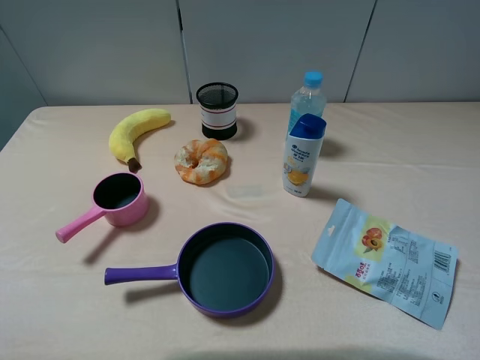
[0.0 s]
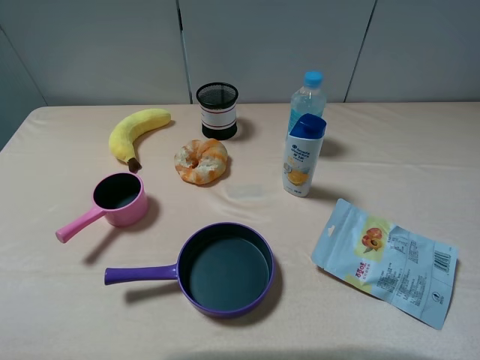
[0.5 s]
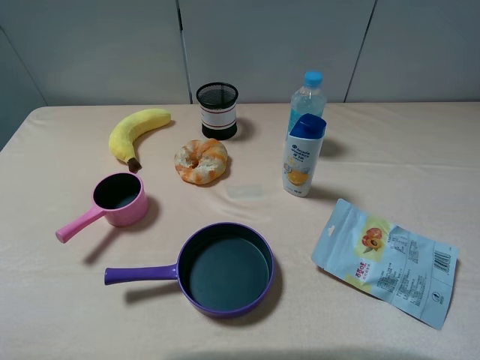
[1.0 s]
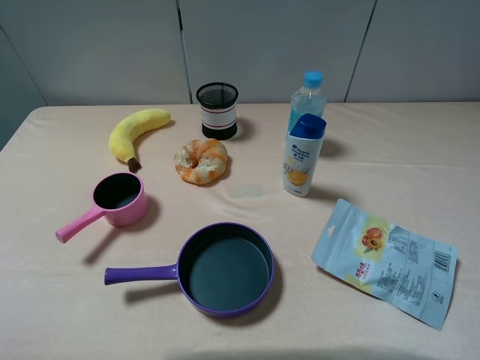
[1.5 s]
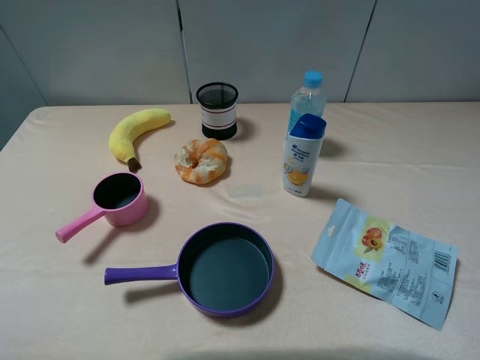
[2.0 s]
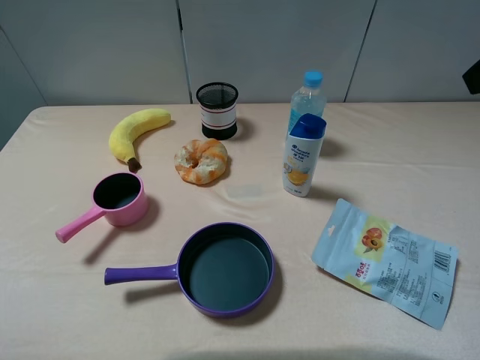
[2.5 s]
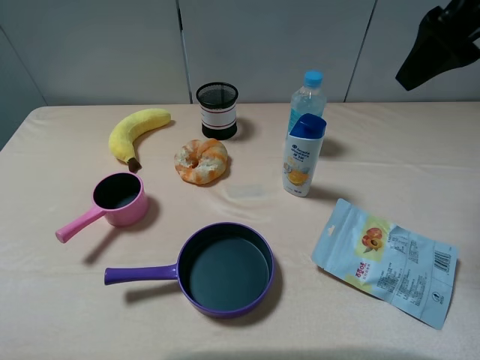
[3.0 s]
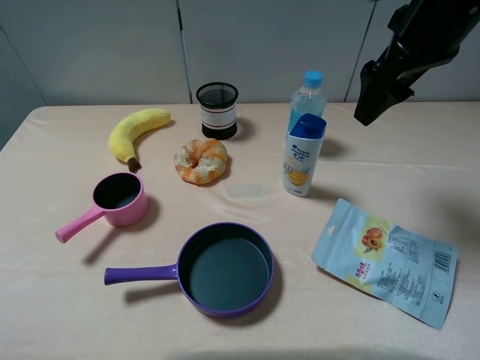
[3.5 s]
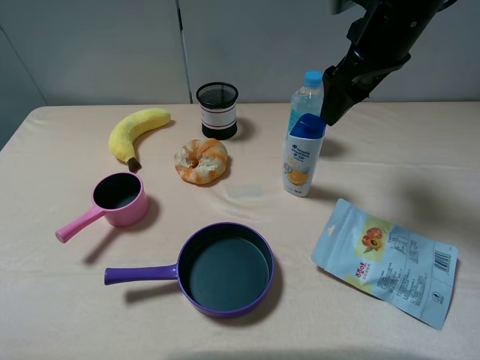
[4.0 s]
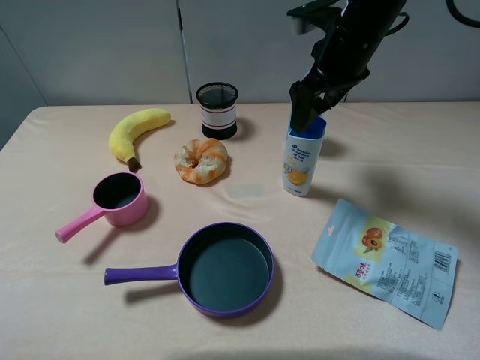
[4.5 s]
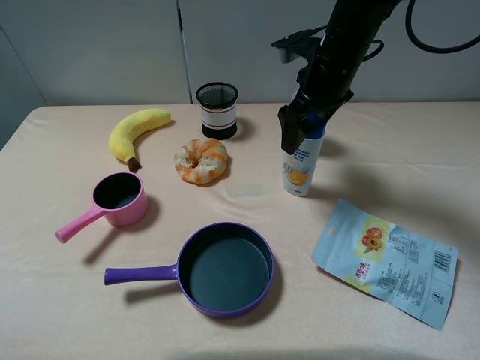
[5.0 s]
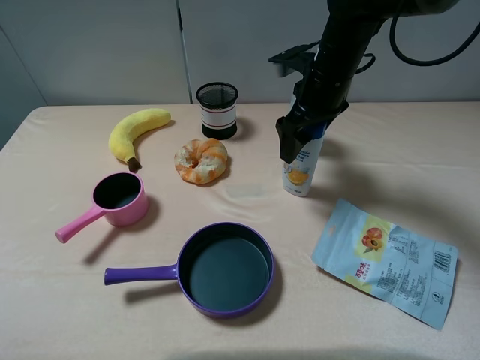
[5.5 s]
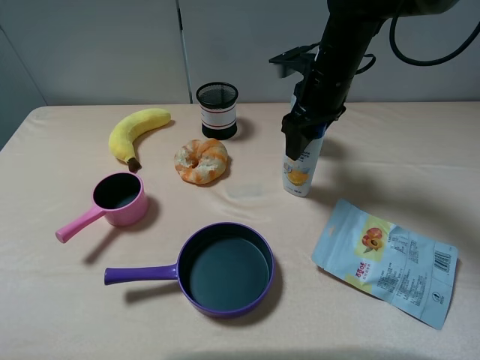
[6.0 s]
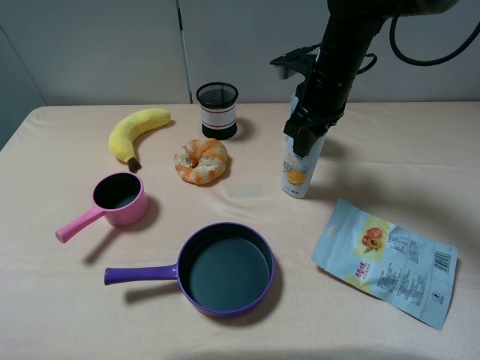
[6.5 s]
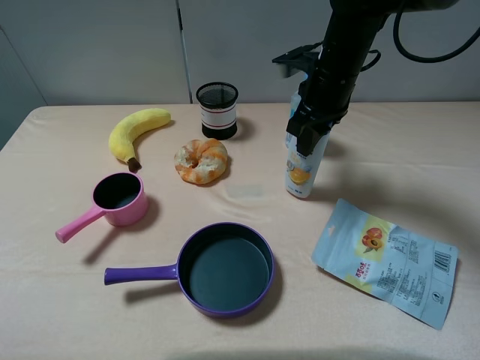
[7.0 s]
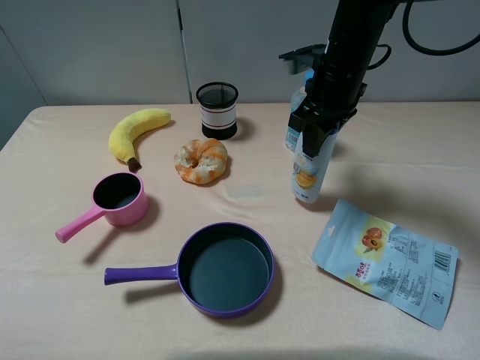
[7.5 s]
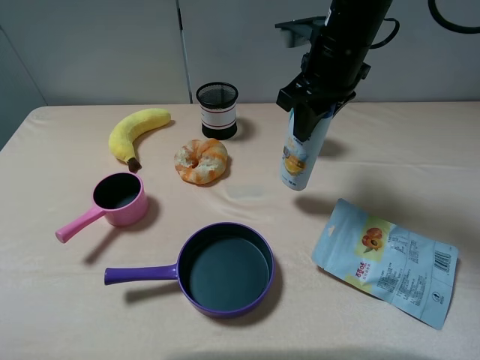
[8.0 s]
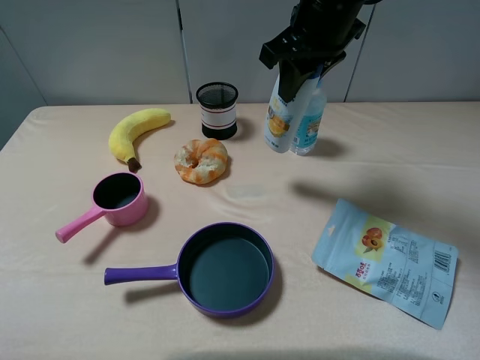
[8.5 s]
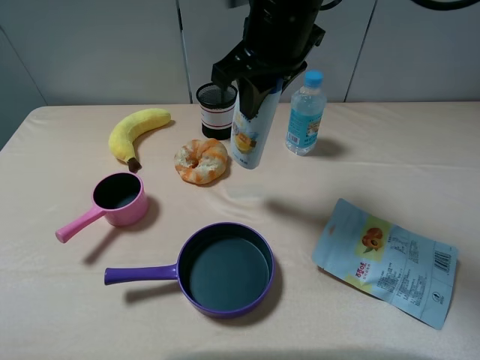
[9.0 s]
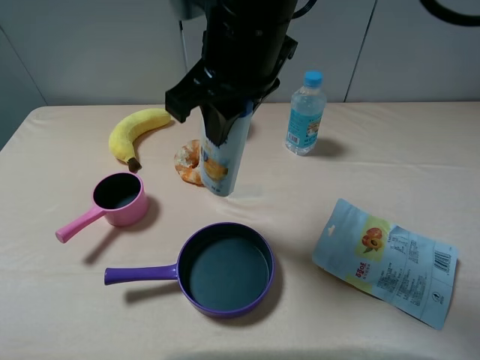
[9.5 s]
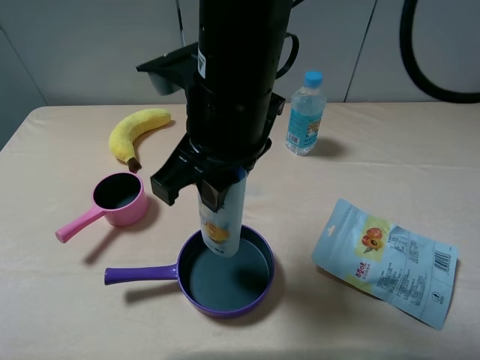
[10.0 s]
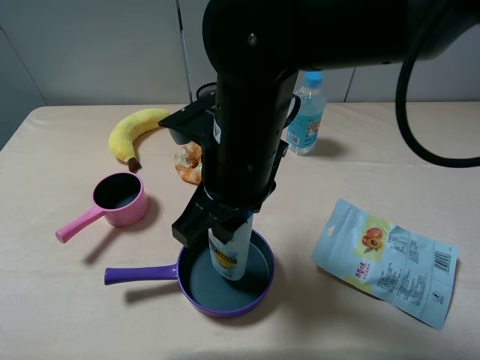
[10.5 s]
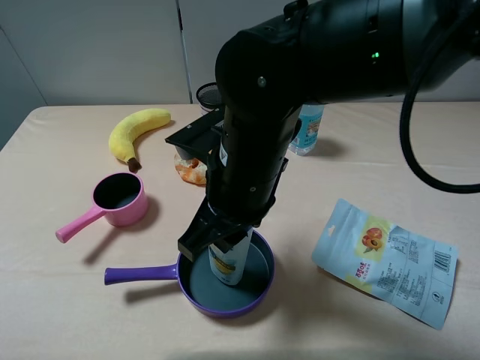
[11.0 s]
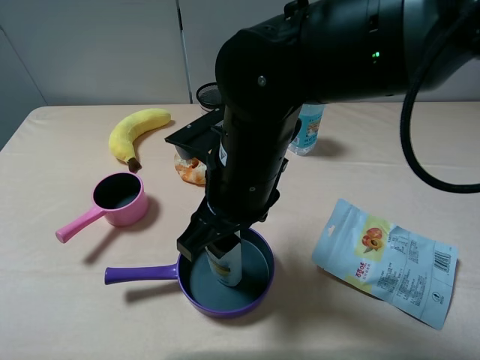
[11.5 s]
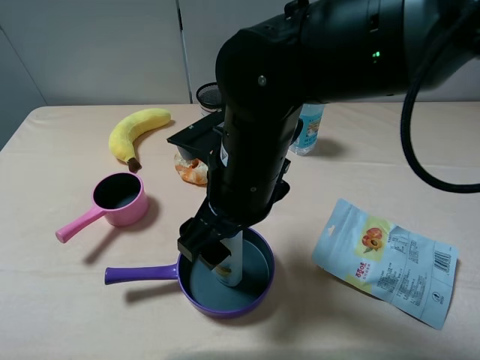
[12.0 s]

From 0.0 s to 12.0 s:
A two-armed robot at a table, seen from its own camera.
Task of the whole recording: pick up an item with a gripper and place it in a random container on the table.
Step, from 0.0 s to 6.5 s: Grasp the shampoo with the right gripper.
From 2.0 s to 4.0 s: The right gripper is displaced forward, to the left and downward by some 25 cm.
From 4.0 s to 6.0 s: The right gripper goes some 10 cm downward, and closes its fingers.
From 6.0 s to 8.0 s: The right gripper travels upward by approximately 5 cm, and closes.
From 8.0 s to 10.0 s: The right gripper heads backward and to the left, covering about 20 cm.
From 10.0 s to 12.0 s: The right gripper travels downward by roughly 5 cm, and opens up.

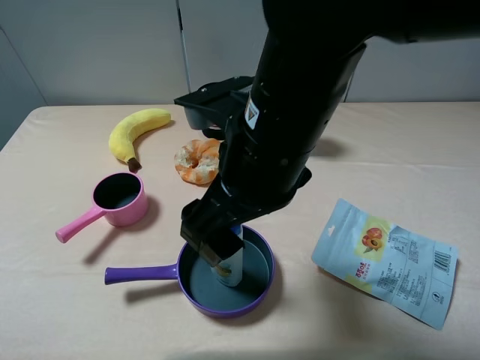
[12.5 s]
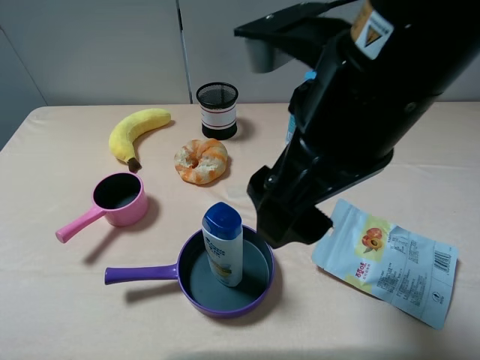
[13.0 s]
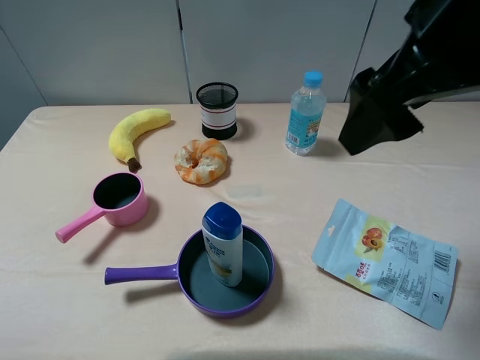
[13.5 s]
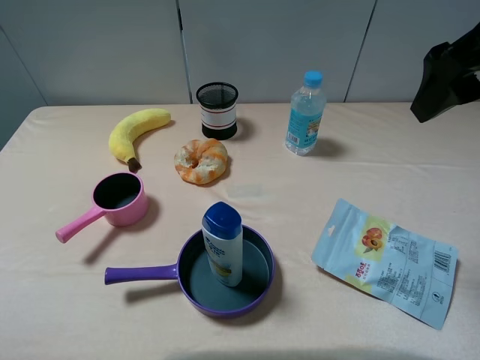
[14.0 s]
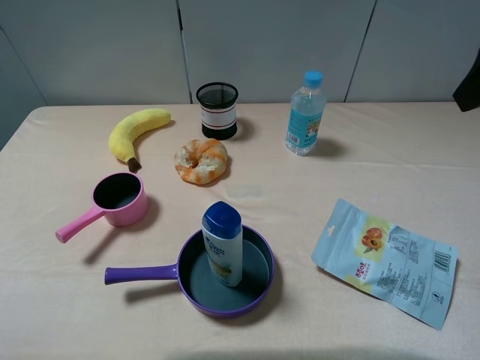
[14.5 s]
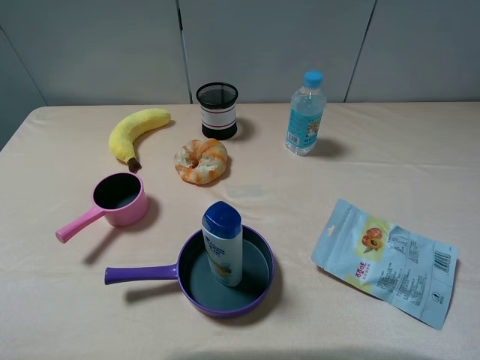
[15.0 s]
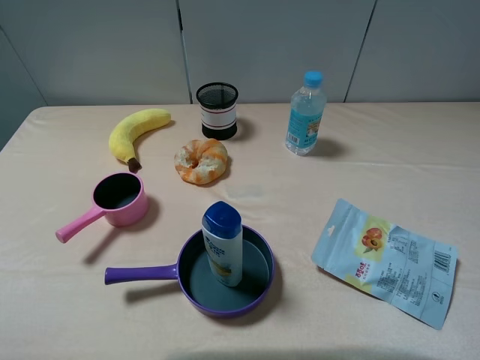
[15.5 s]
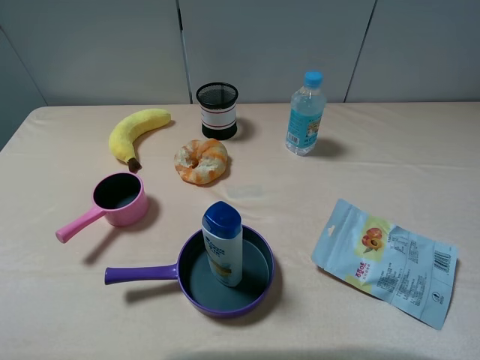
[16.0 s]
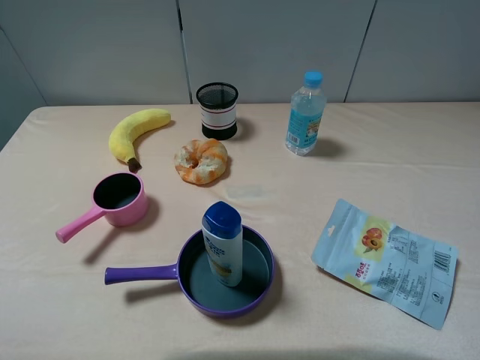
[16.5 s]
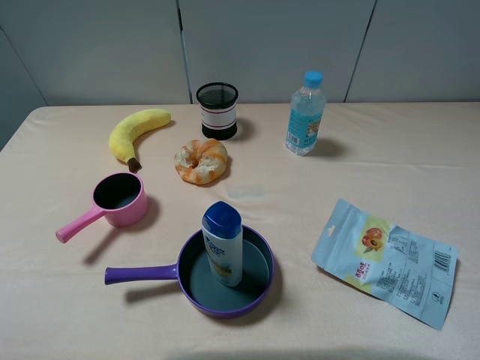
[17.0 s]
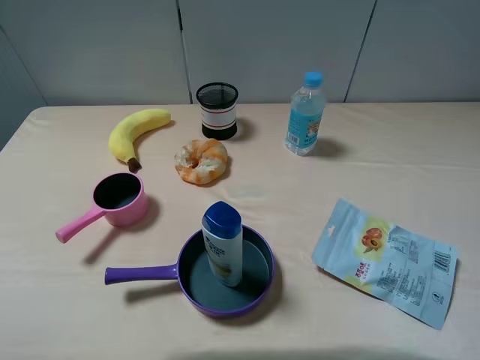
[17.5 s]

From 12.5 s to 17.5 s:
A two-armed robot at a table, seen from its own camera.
Task of the whole recording: pick up an item with a gripper and place it in a random container on the table.
From 12.5 s to 15.0 s: The right gripper is displaced to the right by some 25 cm.

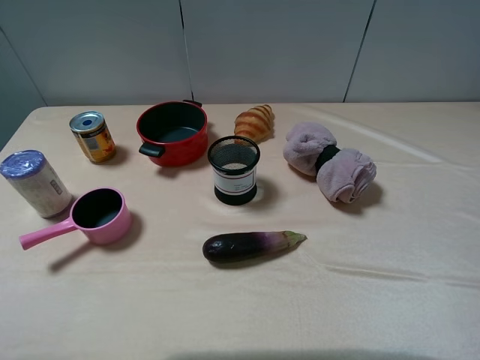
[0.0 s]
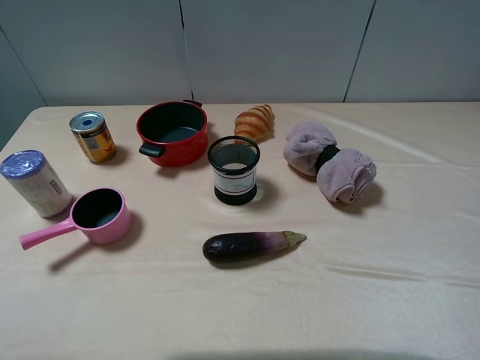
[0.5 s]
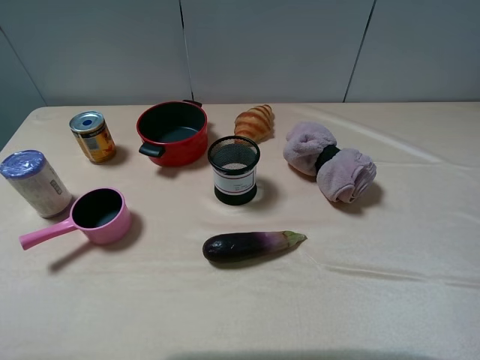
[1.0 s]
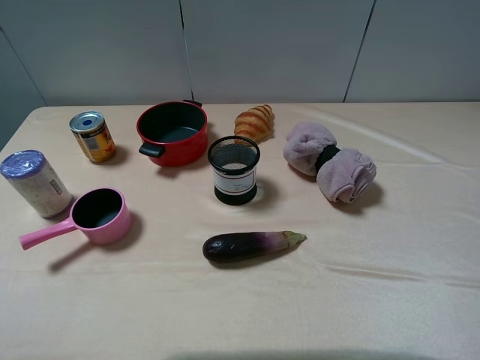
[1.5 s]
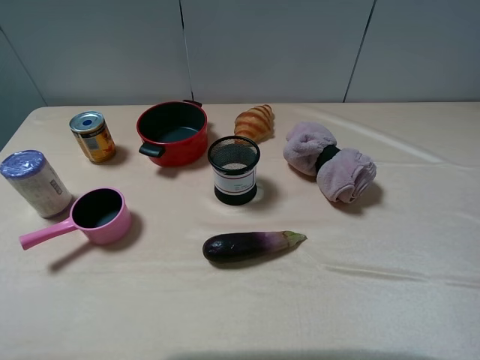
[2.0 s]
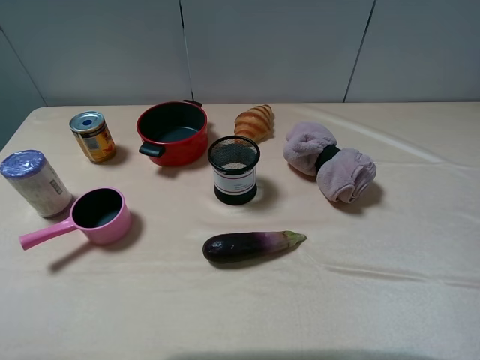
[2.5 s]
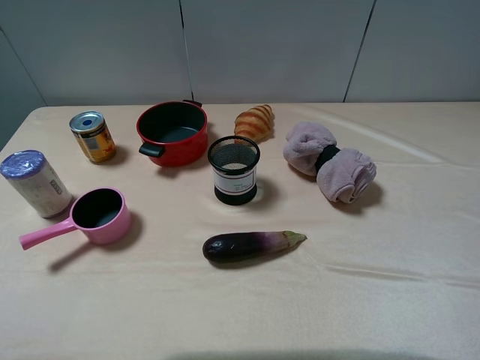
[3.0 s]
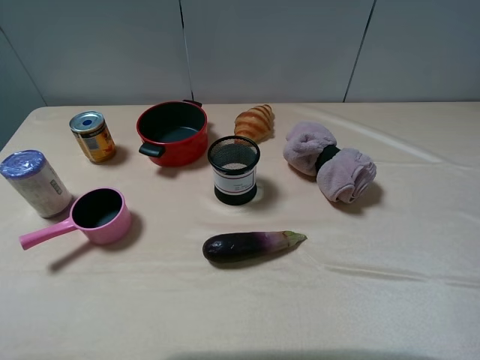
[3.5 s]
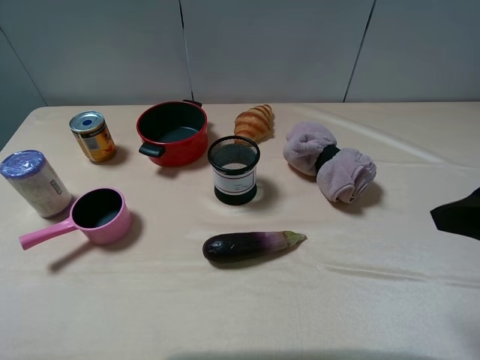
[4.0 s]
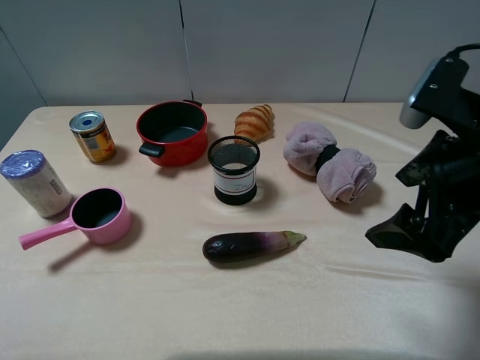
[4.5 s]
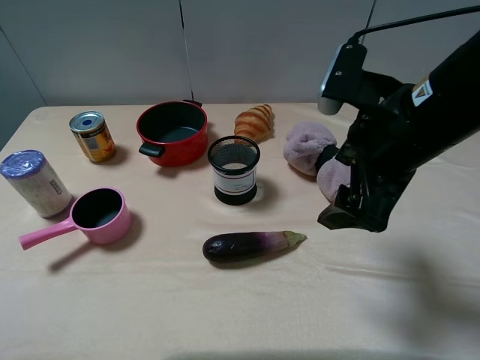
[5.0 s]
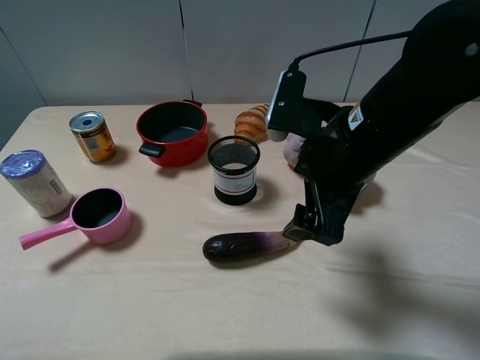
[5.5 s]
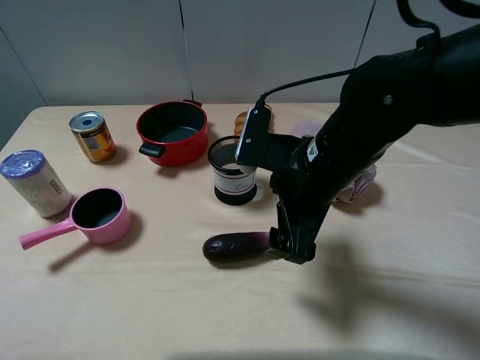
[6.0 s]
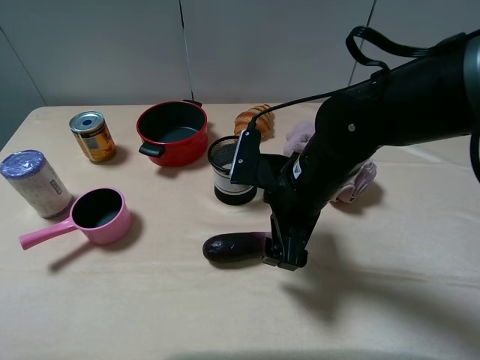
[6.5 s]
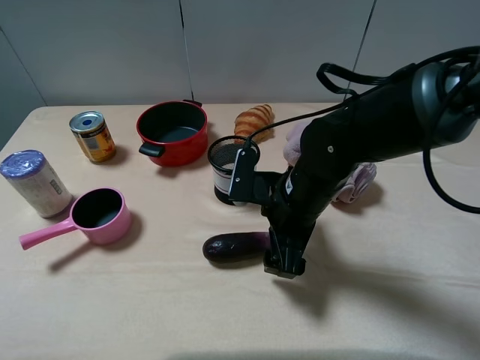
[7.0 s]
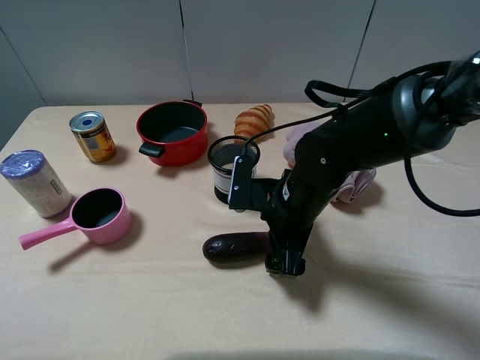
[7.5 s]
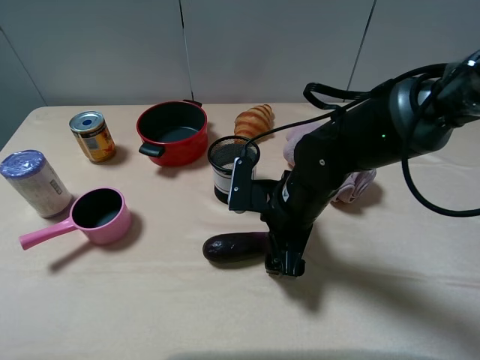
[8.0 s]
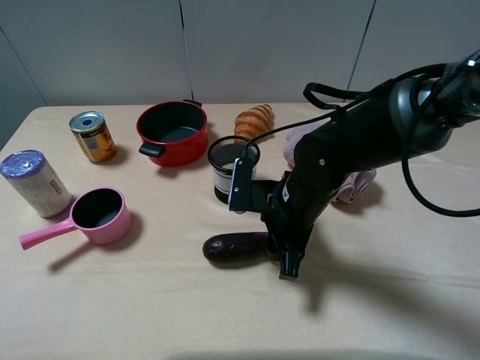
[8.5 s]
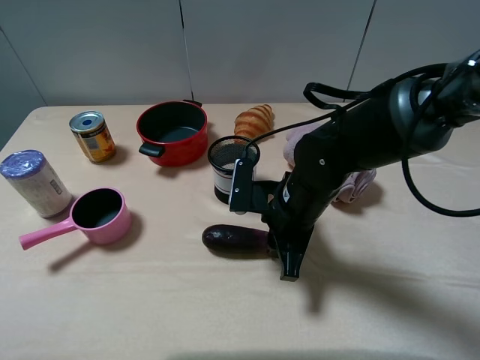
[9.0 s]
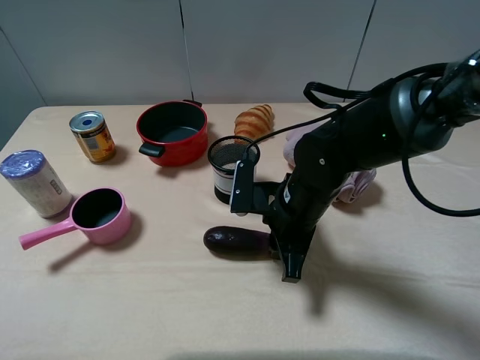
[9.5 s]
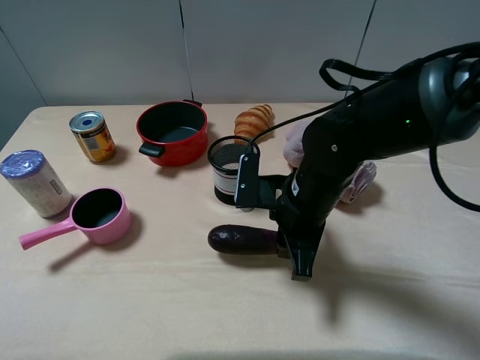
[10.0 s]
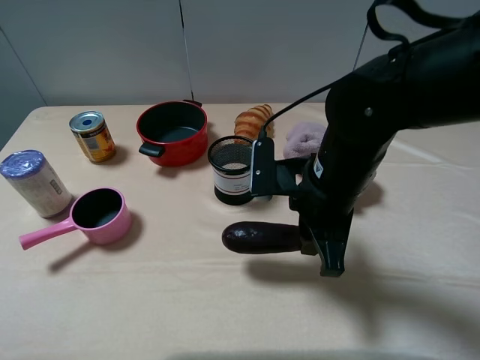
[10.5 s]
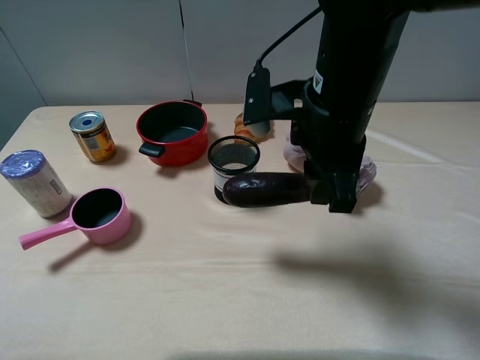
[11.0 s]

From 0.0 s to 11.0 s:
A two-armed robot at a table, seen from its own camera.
Task of the whole recording: pick up an item with a gripper and place it in a random container on the table.
Step, from 0.0 s to 8.5 s: Grasp the eggplant with the right gripper.
From 0.0 s to 2.0 s: Both grippers stay put.
From 3.5 s to 5.5 s: The right gripper is displaced to the left, forward and downward by about 20 cm.
From 5.5 s to 7.5 s: The right gripper is displaced downward by approximately 10 cm.
From 7.5 s to 9.0 s: The right gripper closes up.
From 9.0 s to 11.0 s: The right gripper travels upward by approximately 15 cm.
